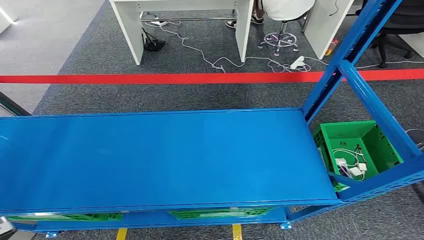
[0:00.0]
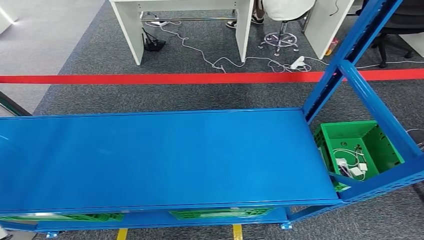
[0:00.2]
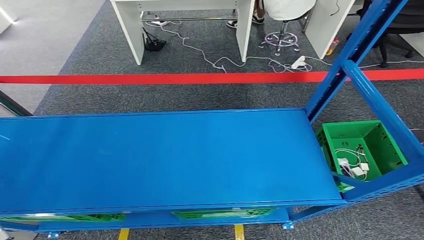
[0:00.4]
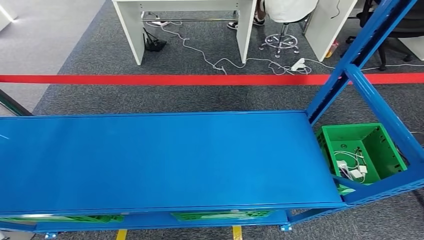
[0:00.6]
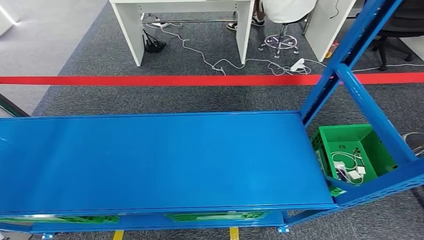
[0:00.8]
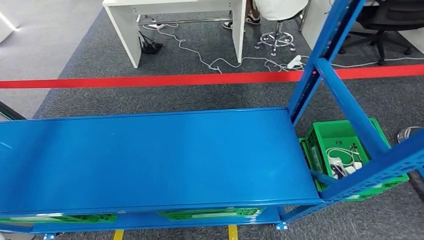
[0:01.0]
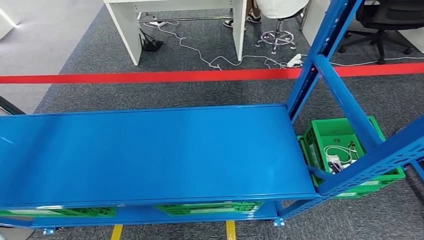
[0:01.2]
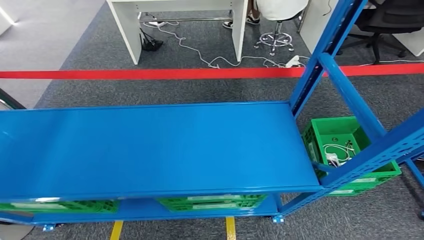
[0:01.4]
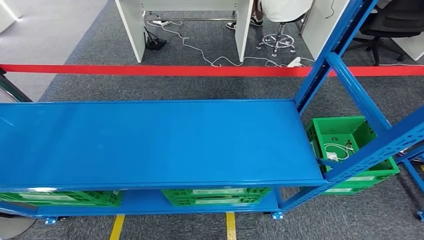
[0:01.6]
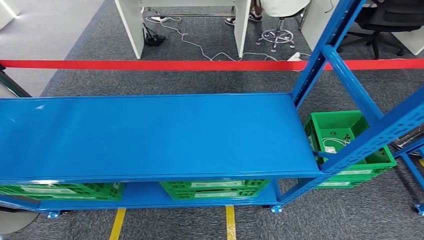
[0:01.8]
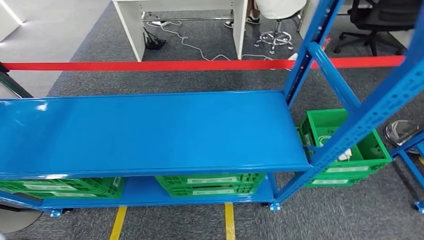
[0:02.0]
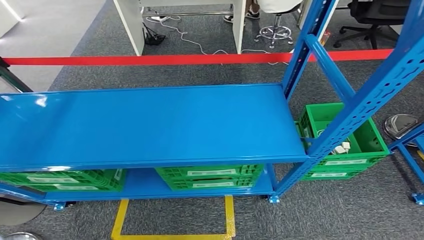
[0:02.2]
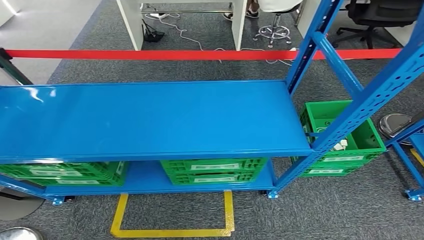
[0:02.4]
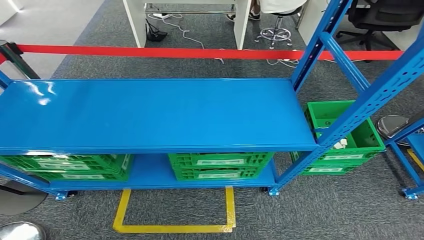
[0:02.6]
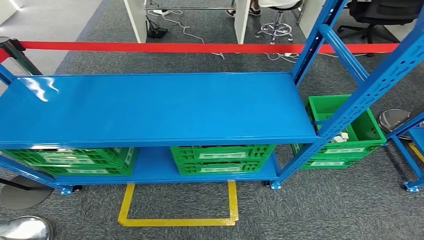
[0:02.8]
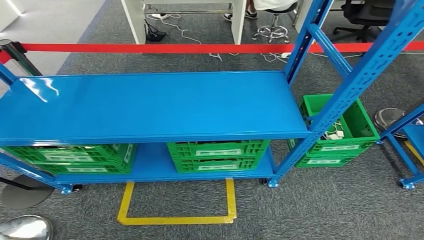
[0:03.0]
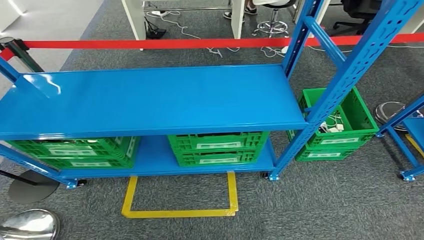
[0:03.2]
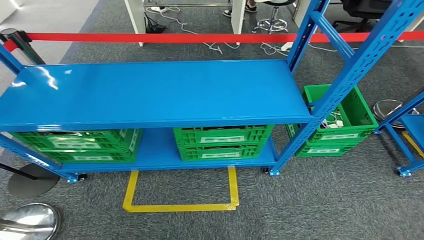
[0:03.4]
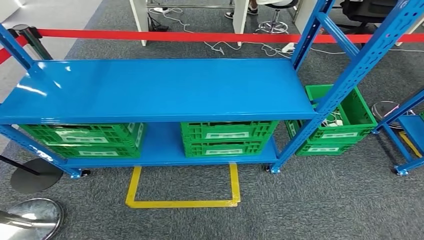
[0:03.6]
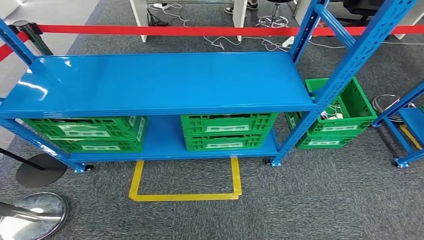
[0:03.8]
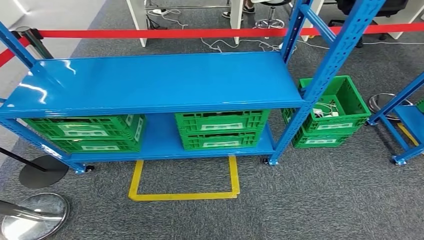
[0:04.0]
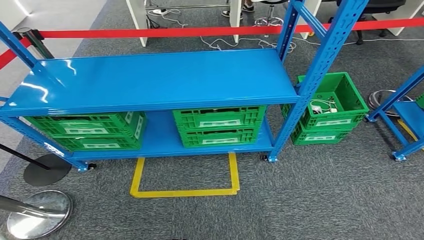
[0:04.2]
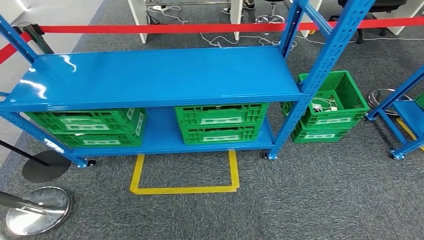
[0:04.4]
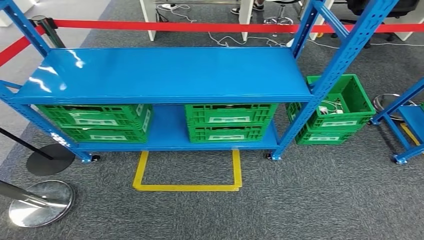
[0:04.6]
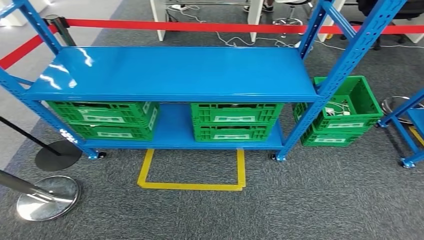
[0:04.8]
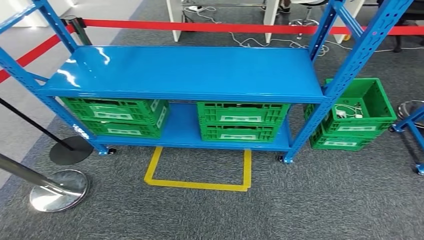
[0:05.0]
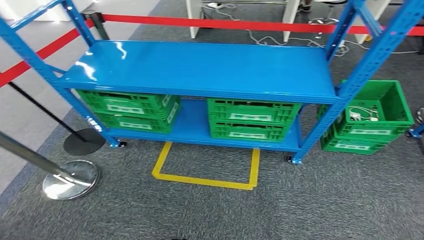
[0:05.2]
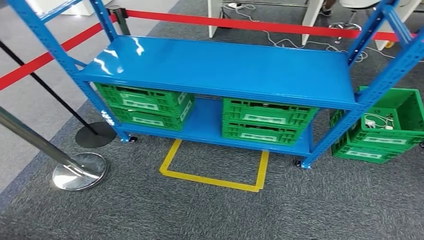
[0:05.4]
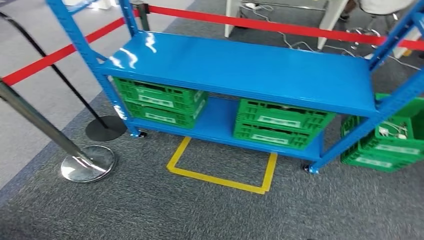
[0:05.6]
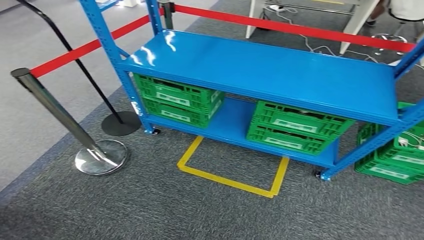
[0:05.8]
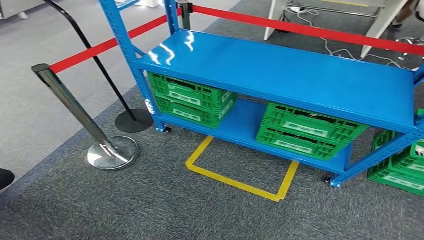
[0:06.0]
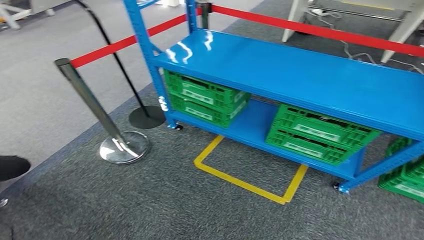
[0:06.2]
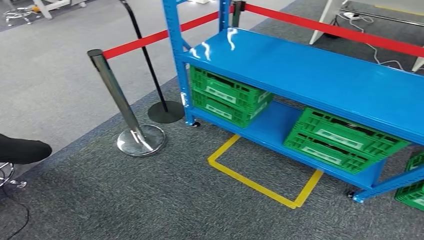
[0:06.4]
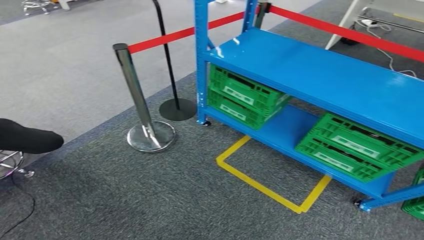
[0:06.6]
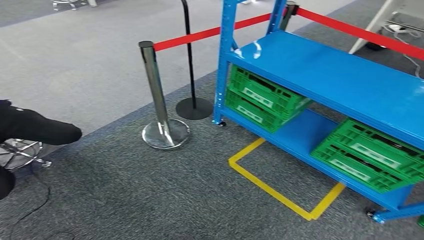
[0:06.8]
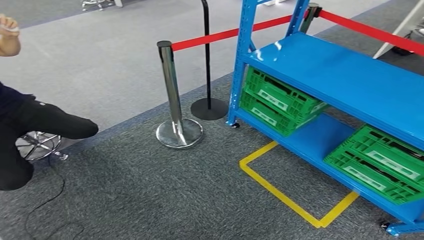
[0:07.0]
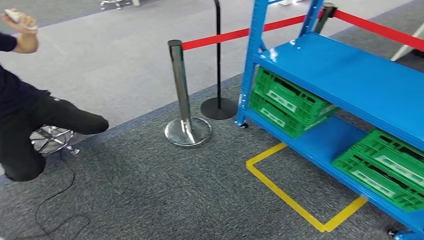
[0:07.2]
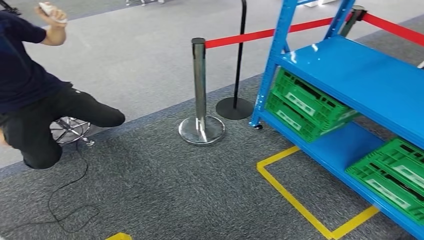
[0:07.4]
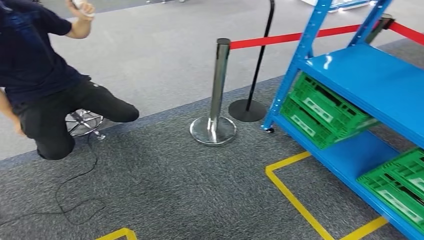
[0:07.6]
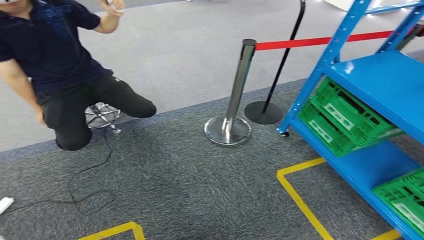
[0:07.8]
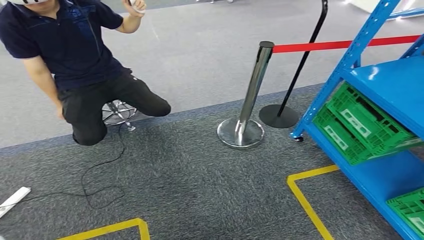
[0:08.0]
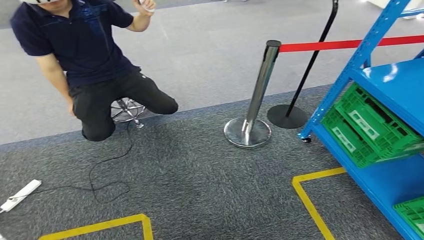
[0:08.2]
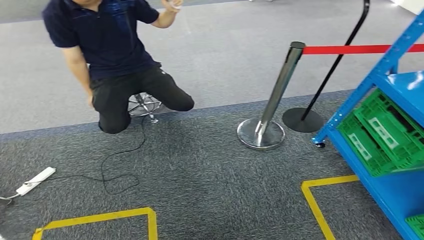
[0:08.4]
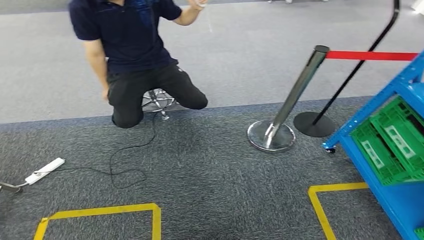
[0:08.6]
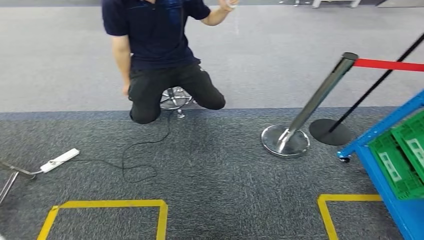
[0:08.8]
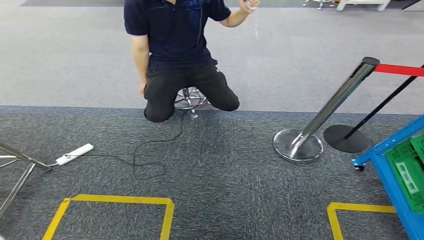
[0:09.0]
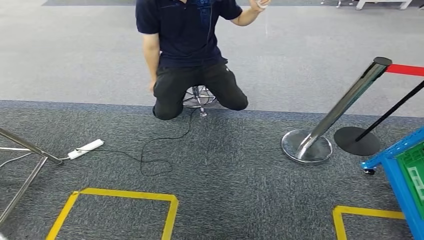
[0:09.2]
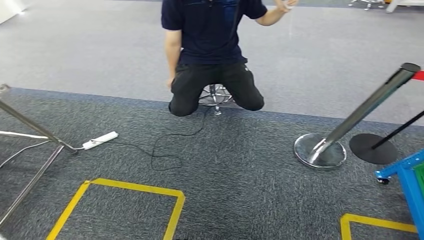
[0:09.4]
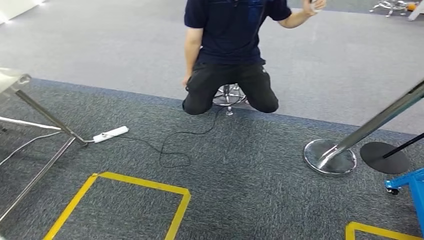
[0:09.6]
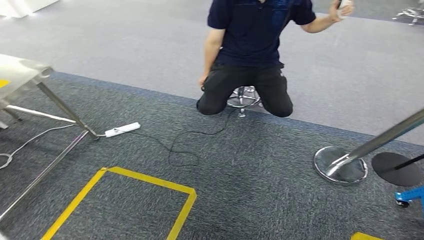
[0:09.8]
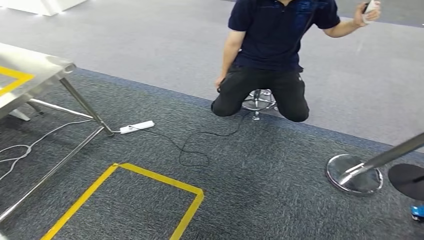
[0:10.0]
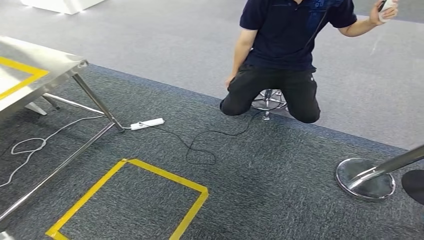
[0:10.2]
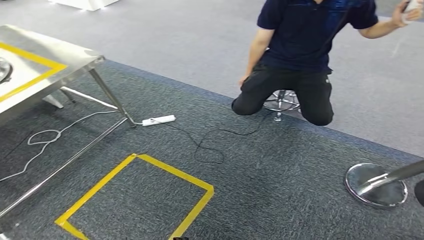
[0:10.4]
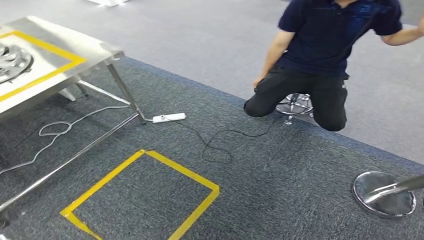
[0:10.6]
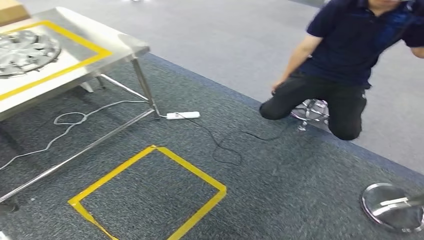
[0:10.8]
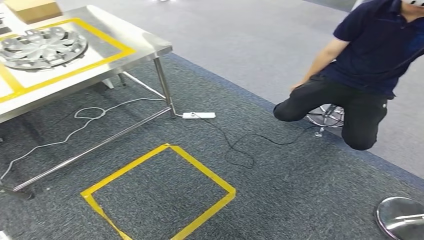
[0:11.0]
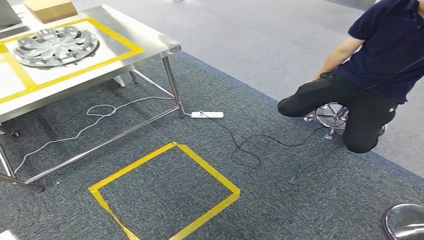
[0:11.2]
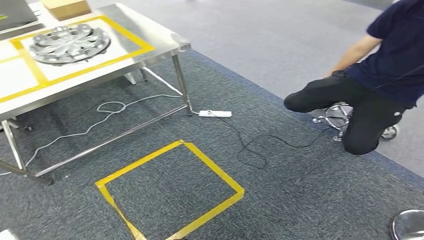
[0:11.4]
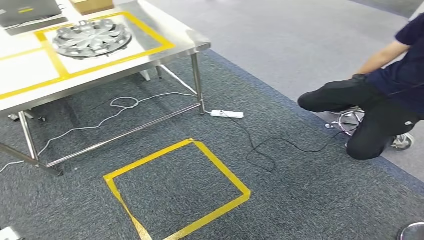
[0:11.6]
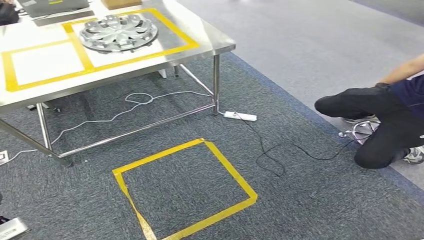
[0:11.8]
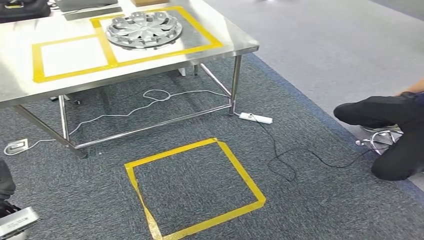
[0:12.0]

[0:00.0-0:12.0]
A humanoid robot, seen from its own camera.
Step, 0:00.0 to 0:03.2: Take small components from the rack.

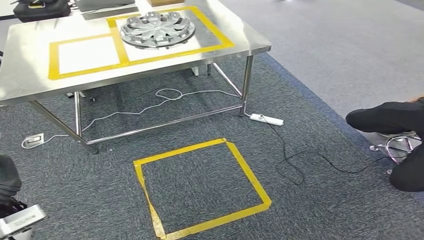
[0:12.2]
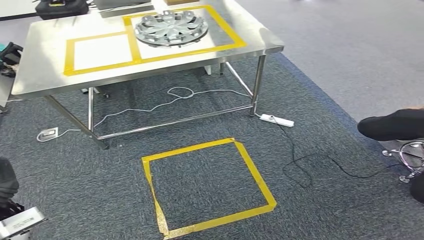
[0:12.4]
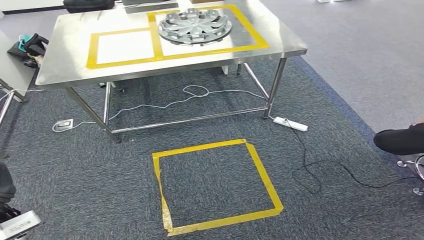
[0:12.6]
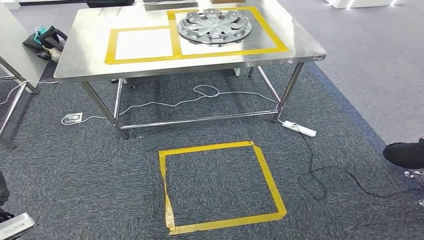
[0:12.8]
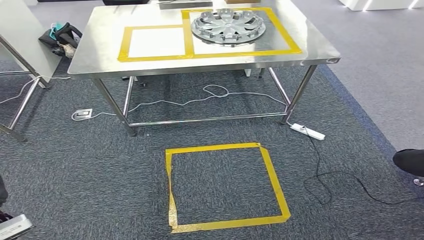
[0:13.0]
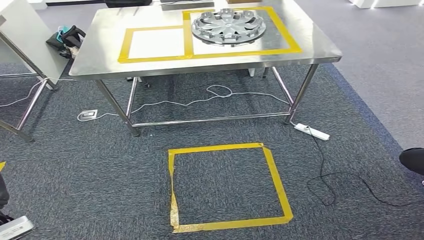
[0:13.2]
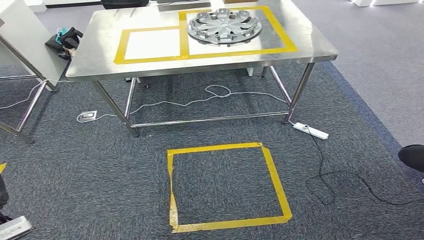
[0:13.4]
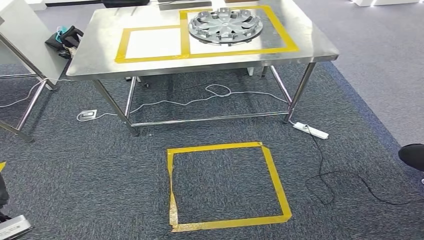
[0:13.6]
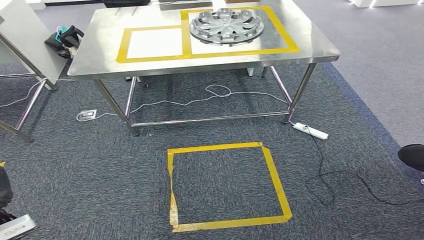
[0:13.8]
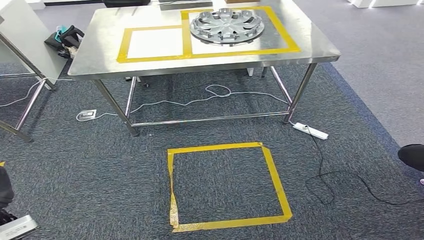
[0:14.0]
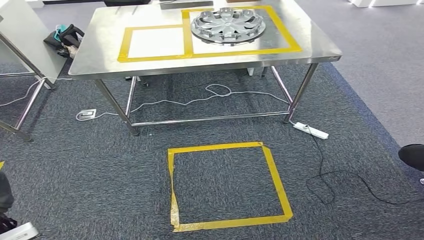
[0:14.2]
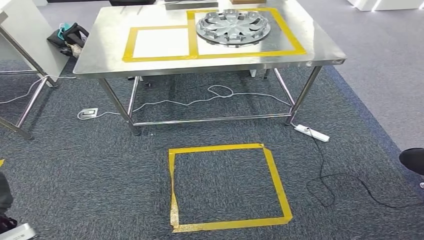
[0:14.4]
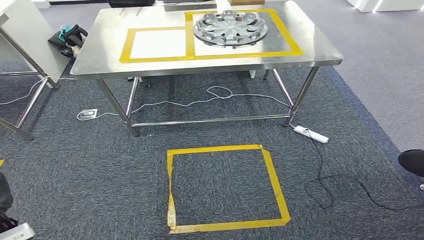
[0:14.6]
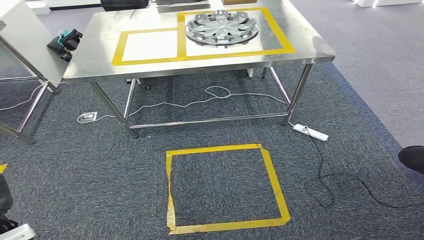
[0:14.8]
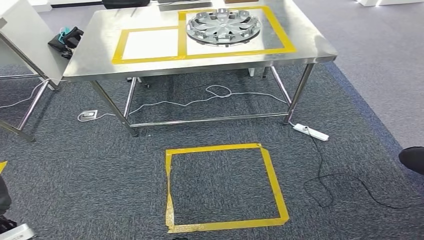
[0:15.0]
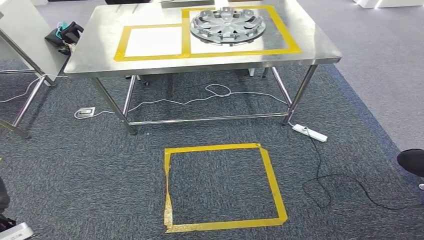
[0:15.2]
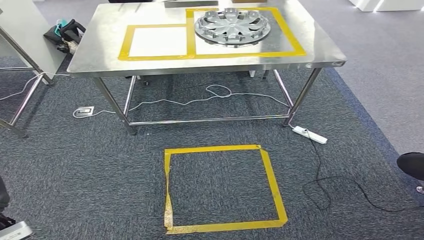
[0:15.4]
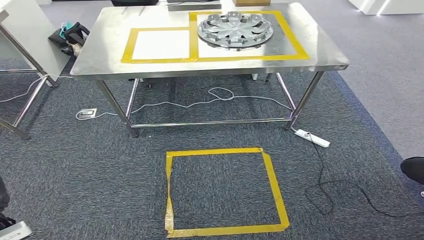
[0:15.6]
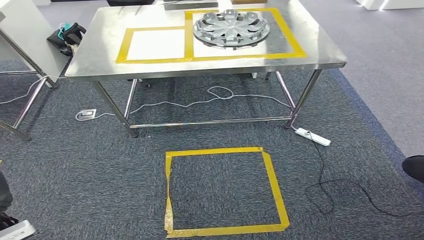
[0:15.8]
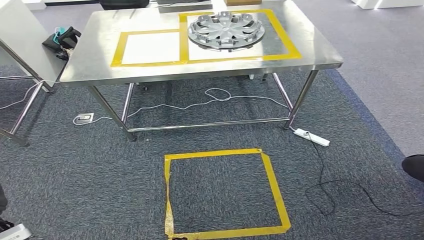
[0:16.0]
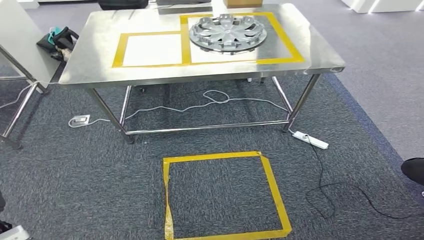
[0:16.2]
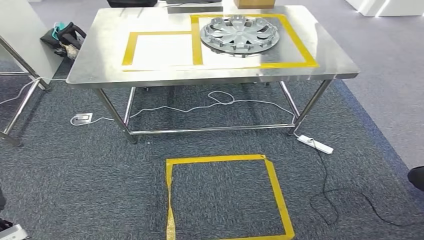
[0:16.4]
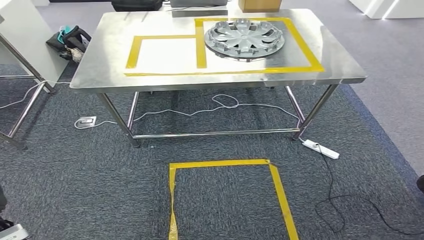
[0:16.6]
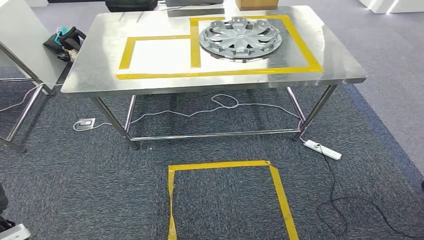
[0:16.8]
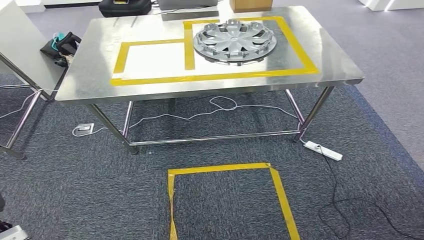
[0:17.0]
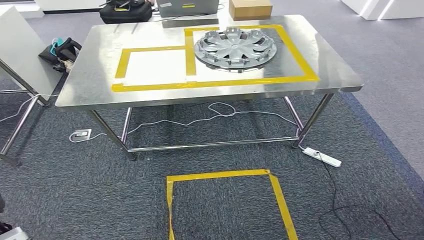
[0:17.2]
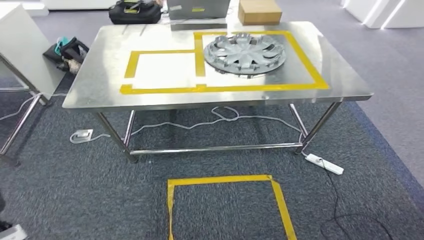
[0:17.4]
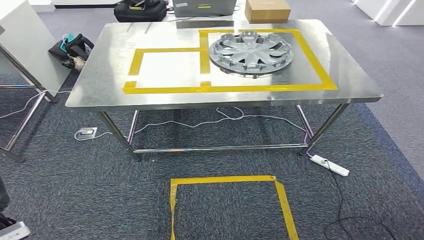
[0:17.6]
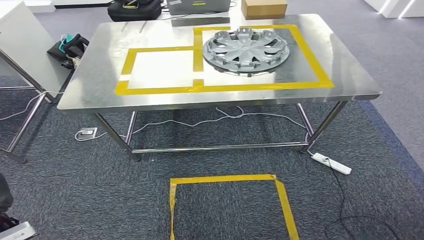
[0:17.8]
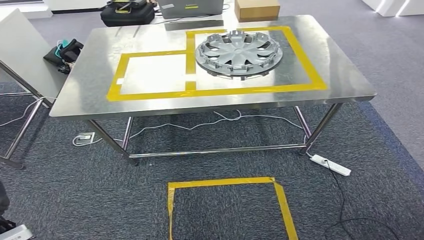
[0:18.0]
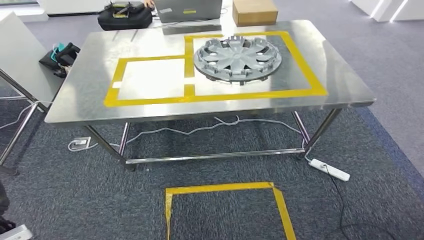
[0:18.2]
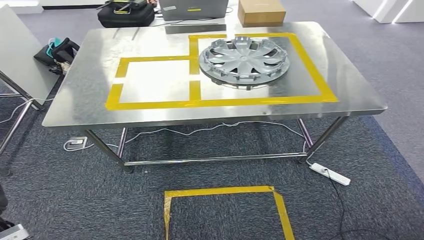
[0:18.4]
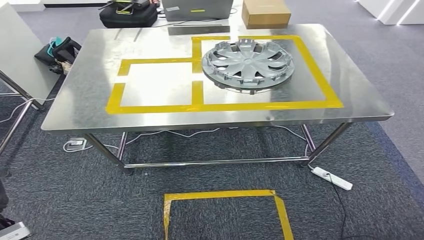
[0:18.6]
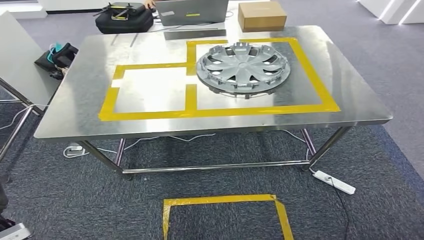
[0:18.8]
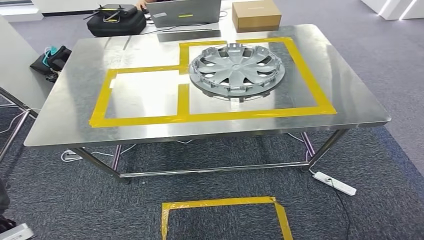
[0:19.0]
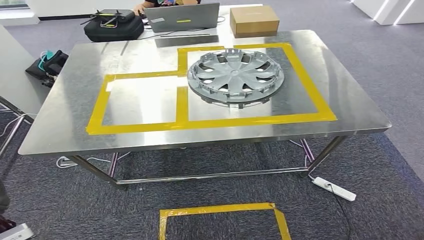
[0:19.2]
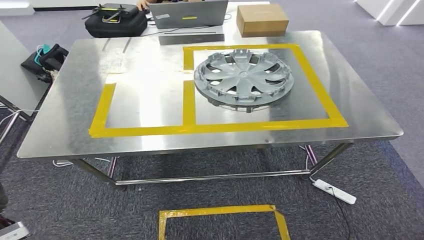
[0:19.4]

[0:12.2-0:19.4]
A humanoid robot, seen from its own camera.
Step, 0:12.2 to 0:19.0: Move the small parts to the workbench.
0:13.6 to 0:15.0: The hands move only a little.
